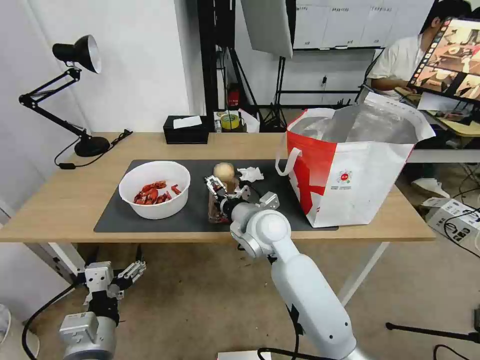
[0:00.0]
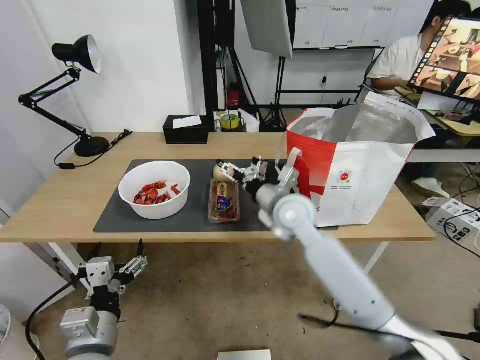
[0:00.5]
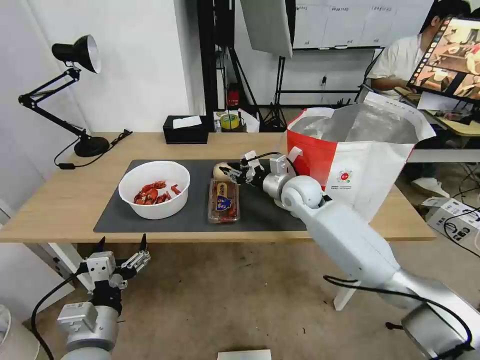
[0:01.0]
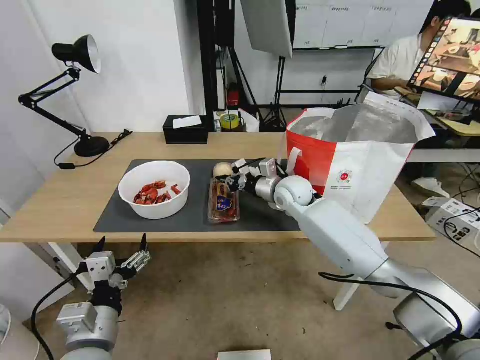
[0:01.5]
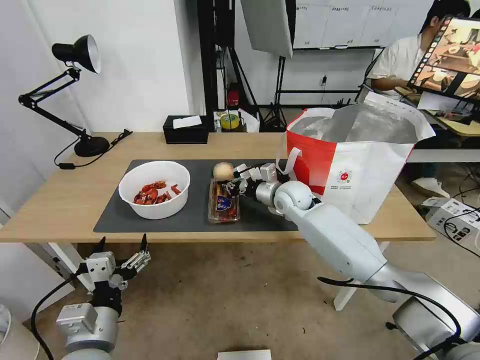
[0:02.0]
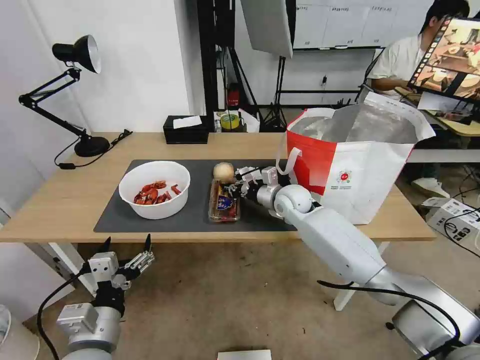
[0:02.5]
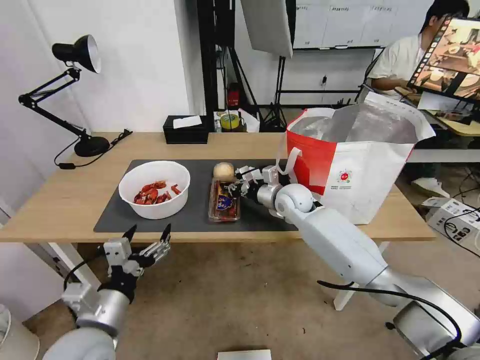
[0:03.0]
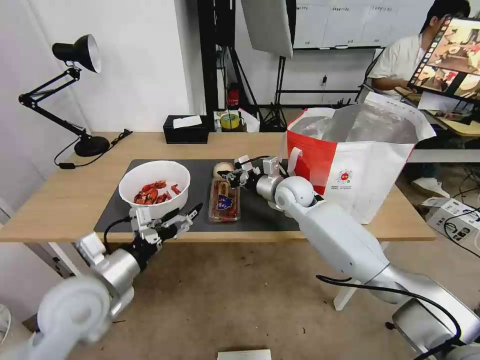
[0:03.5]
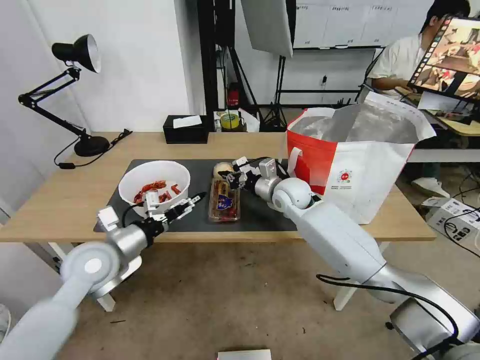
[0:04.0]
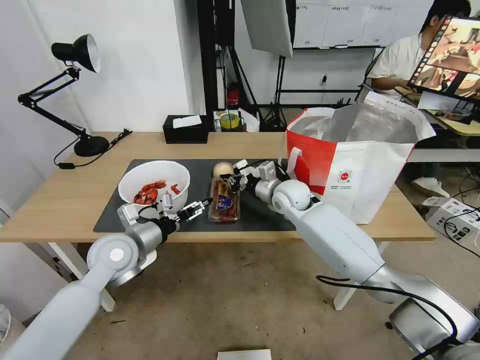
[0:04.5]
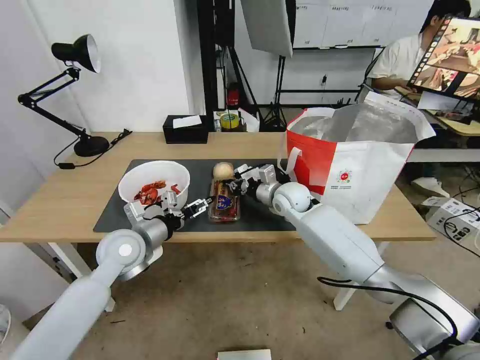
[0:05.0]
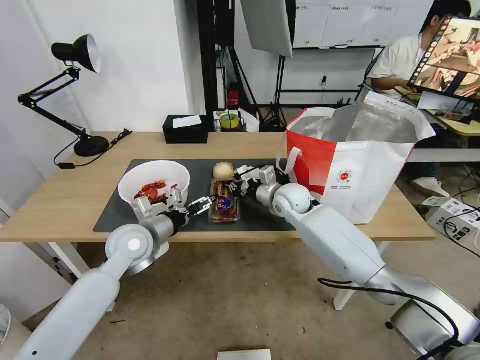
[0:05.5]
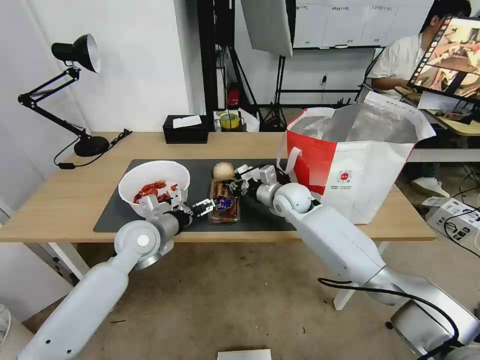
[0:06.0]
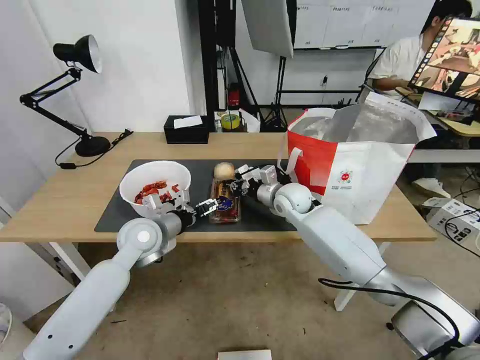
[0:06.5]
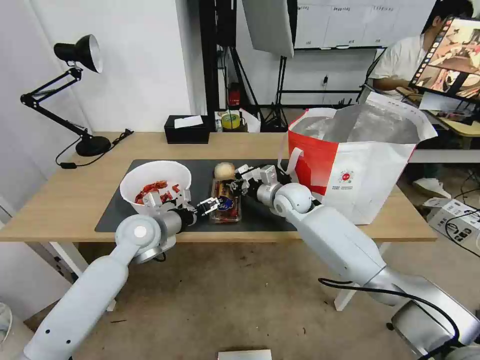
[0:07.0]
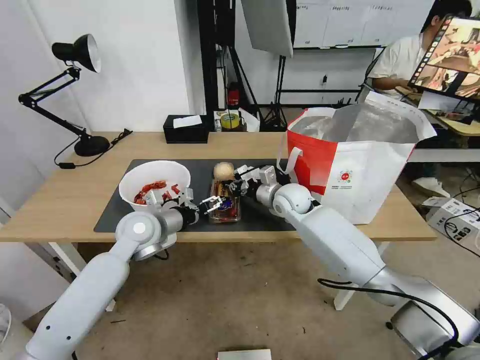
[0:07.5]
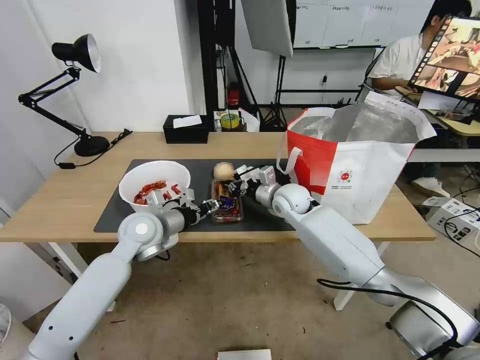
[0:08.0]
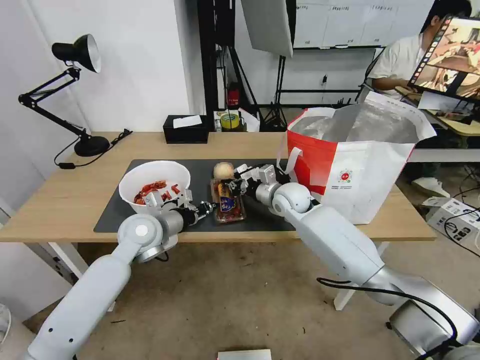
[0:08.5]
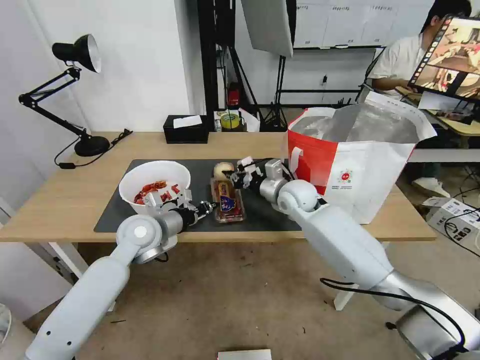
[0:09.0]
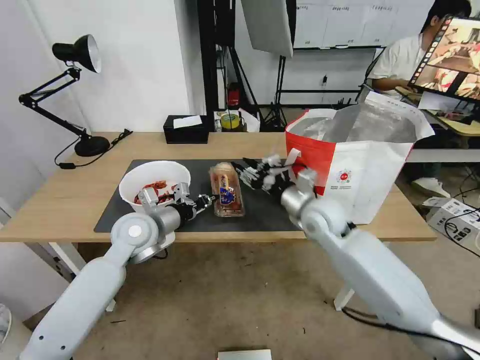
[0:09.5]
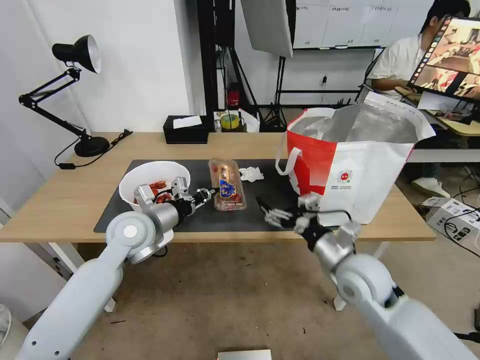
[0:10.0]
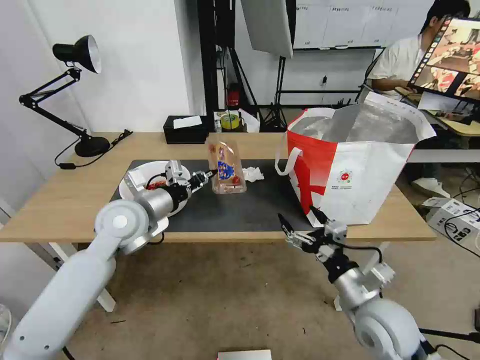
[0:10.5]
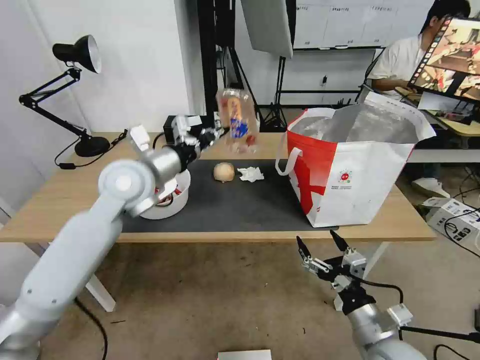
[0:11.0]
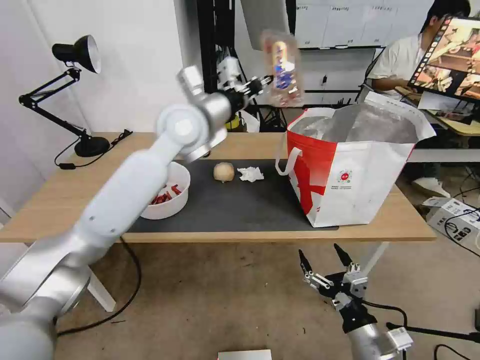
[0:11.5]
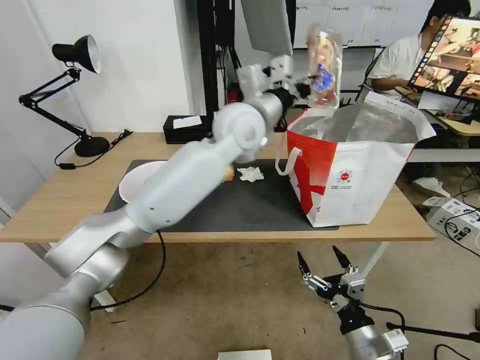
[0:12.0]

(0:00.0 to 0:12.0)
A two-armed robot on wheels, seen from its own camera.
Task of the whole recording: Pick up the trash from the table and place it into the takeout bag.
0:00.0 - 0:02.0: The right gripper travels forward and to the right by roughly 15 cm, and closes.
0:02.0 - 0:04.0: The left gripper goes about 20 cm forward.
0:04.0 - 0:06.0: The left gripper moves forward and to the right, some 10 cm.
0:06.0 - 0:08.0: The left gripper closes its fingers.
0:08.0 - 0:10.0: The right gripper travels backward and to the right by roughly 25 cm, and opens; the left gripper closes.
0:10.0 - 0:12.0: The left gripper heads to the right, upward and forward, covering roughly 30 cm; the right gripper shifts some 20 cm backward and downward.

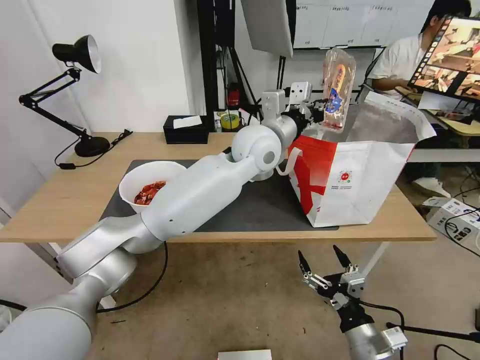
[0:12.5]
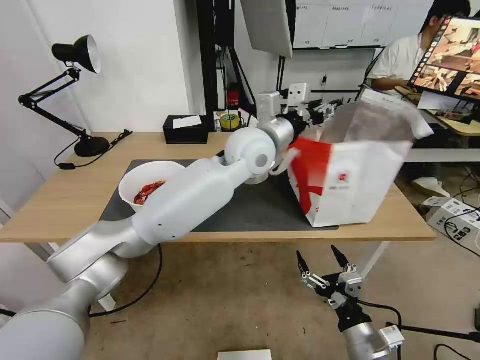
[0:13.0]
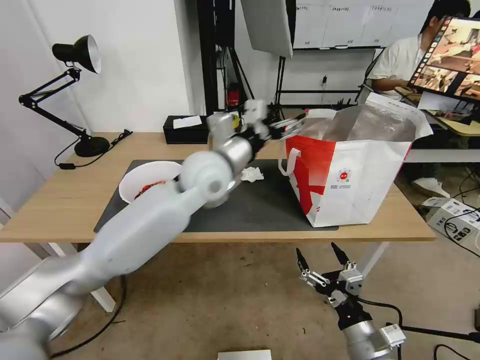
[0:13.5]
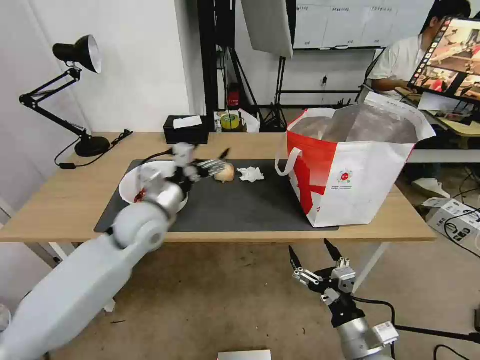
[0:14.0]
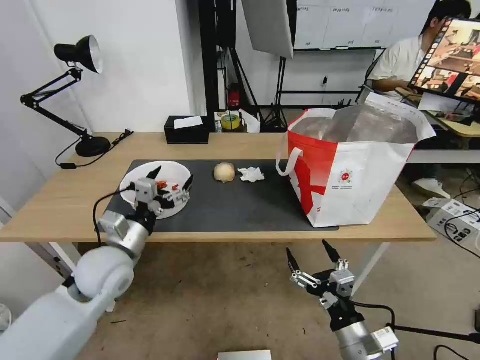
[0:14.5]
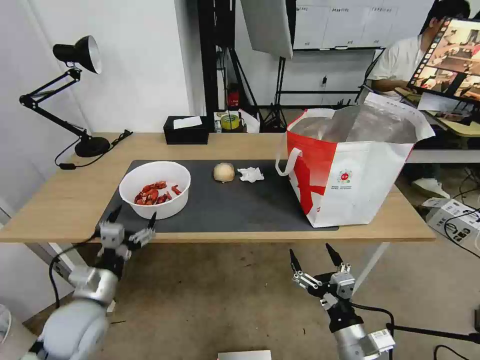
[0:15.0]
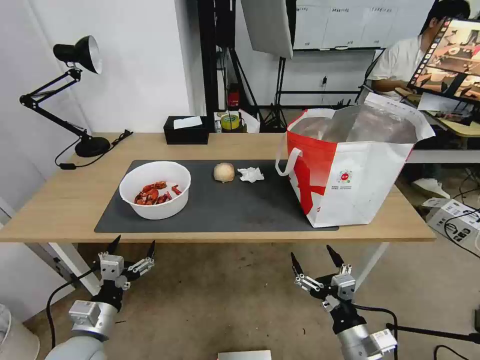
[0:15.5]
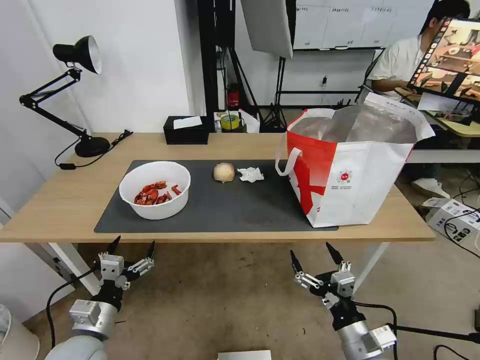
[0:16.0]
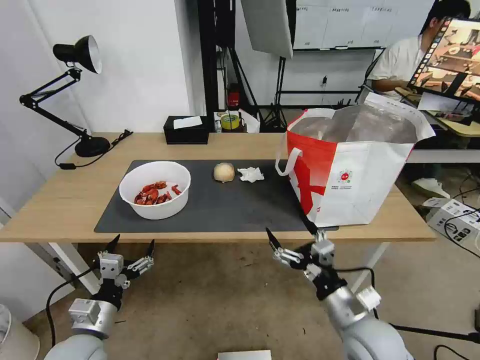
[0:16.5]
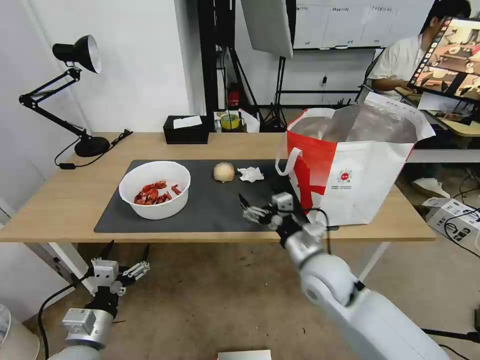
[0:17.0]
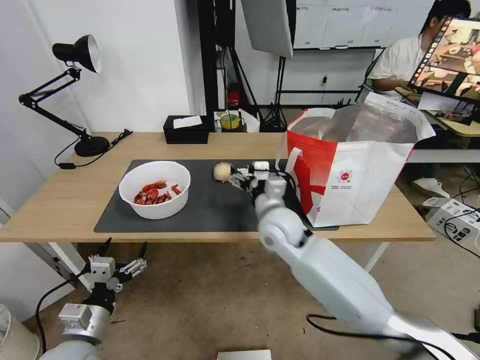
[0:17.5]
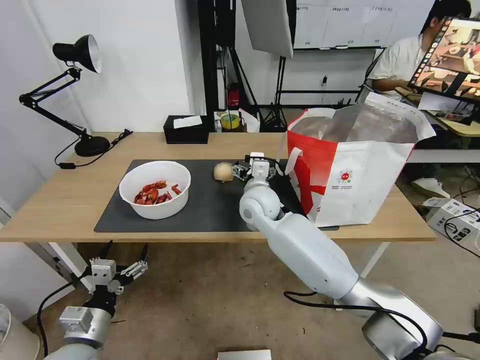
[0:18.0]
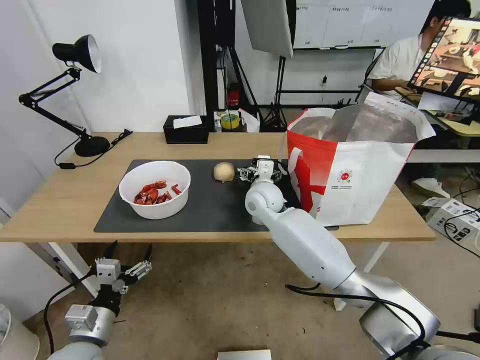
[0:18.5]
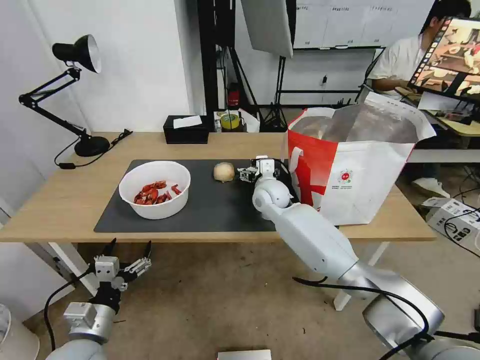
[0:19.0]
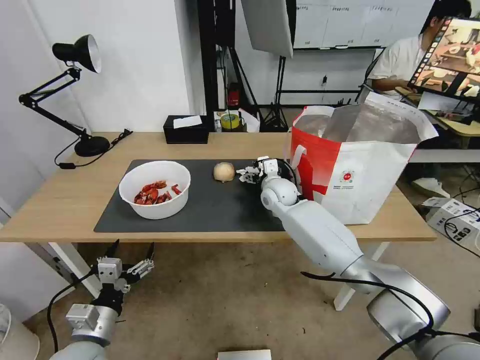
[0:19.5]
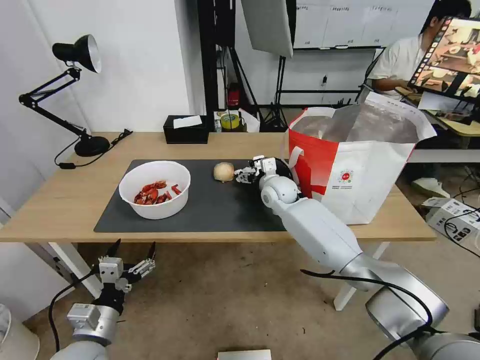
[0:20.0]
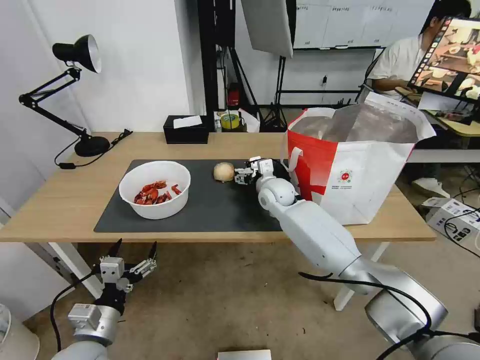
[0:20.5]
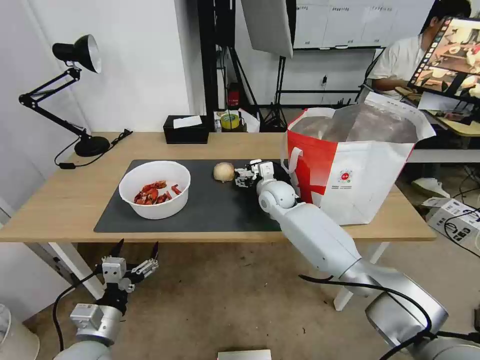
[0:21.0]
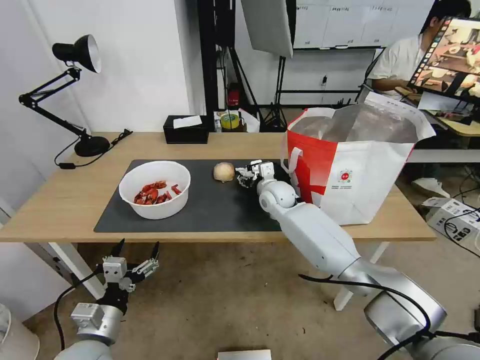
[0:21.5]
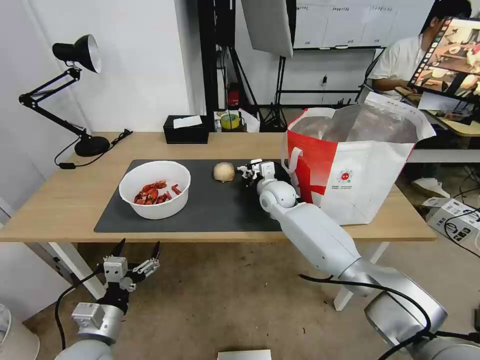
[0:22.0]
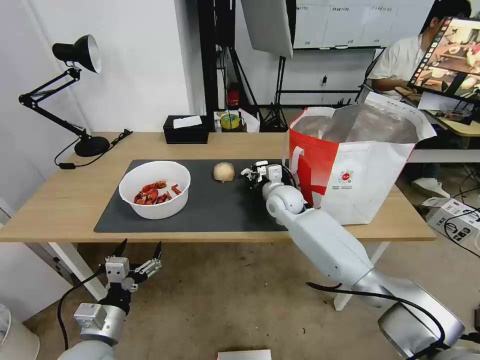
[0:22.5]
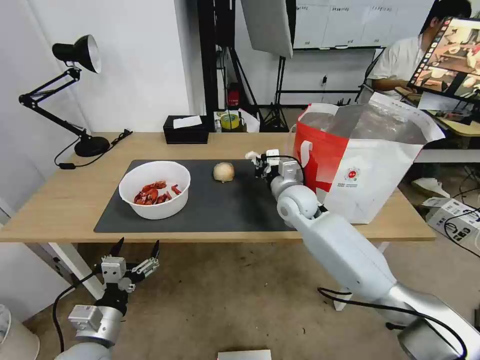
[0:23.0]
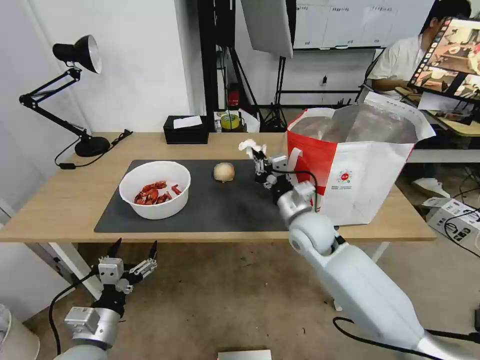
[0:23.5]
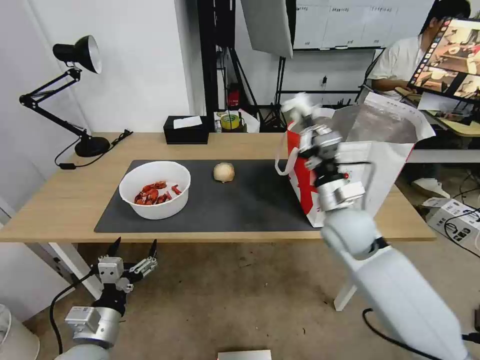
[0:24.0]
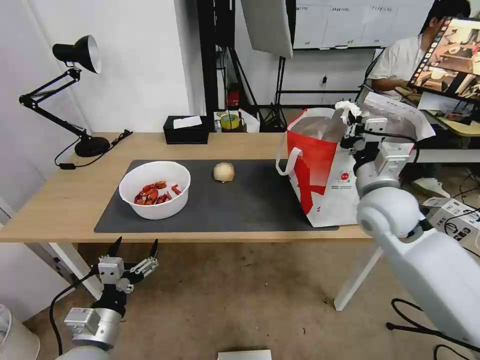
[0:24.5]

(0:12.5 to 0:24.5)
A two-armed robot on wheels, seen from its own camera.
Task of the whole recording: Pick up the trash from the table and place it into the takeout bag.
0:12.5 - 0:14.5: The left gripper shifts approximately 40 cm to the left, backward and downward, and opens.
0:14.5 - 0:16.5: The right gripper is displaced forward by approximately 5 cm. The left gripper heads backward and downward, covering about 15 cm.
0:16.5 - 0:18.5: The right gripper goes some 35 cm forward and to the left.
0:18.5 - 0:20.5: The right gripper changes place by roughly 5 cm.
0:20.5 - 0:22.5: The right gripper closes.
0:22.5 - 0:24.5: The right gripper heads to the right, backward and upward, covering about 25 cm.

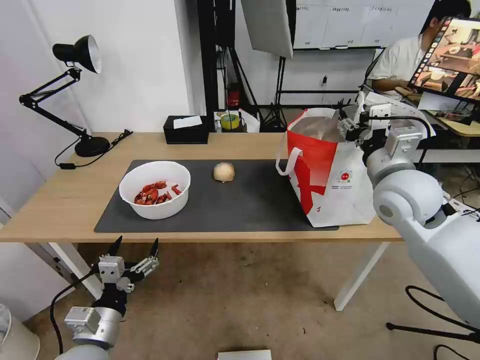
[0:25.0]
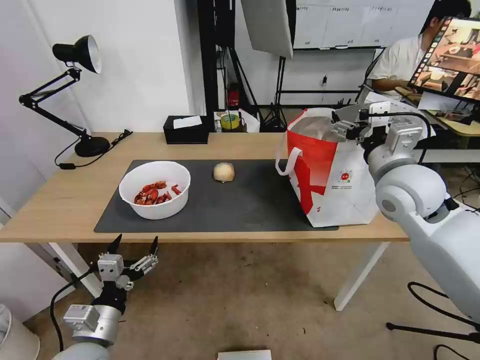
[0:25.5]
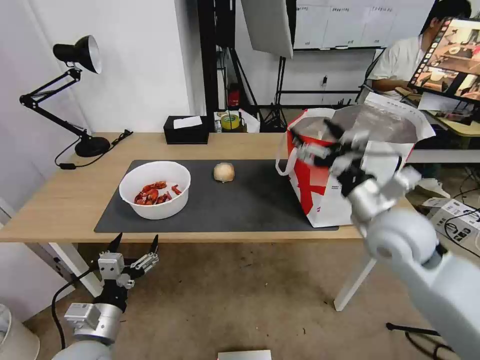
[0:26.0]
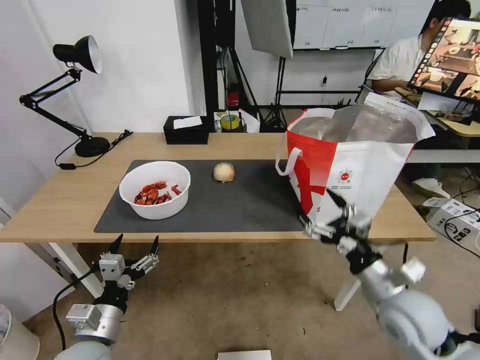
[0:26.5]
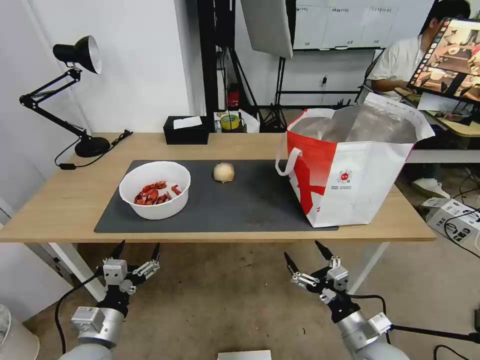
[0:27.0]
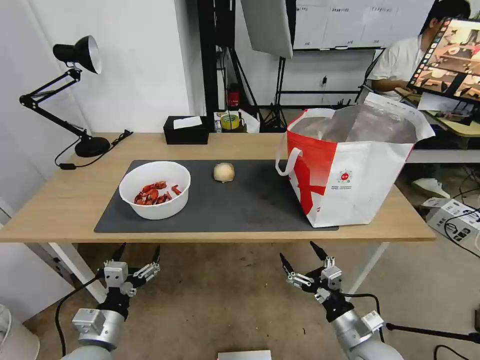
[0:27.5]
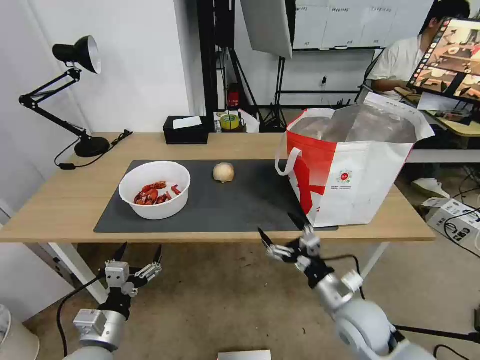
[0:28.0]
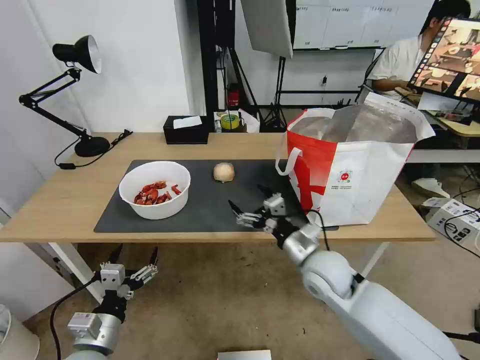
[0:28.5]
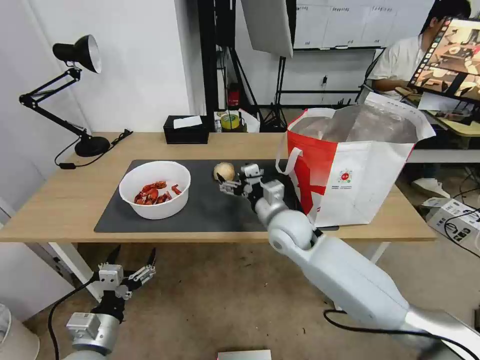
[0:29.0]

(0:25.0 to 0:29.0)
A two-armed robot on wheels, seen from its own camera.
Task of the whole recording: Pick up the trash from the table and place it into the takeout bag.
0:25.0 - 0:27.0: The right gripper shifts about 35 cm downward and backward, and opens up.
0:27.0 - 0:29.0: The right gripper travels forward, to the left and upward by roughly 30 cm.
